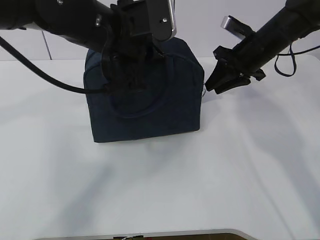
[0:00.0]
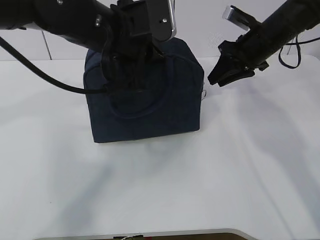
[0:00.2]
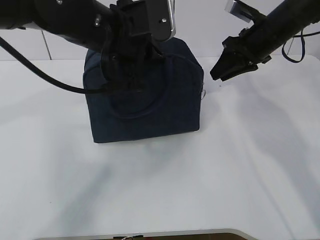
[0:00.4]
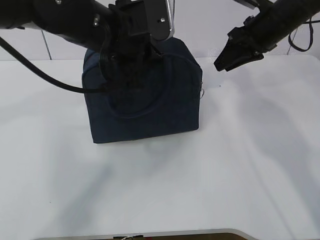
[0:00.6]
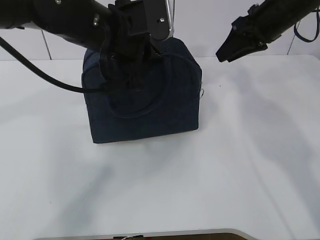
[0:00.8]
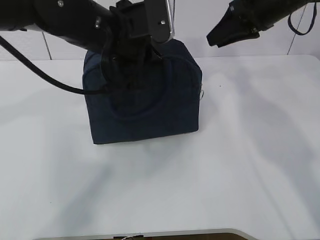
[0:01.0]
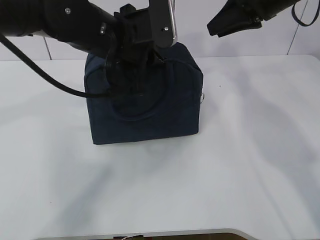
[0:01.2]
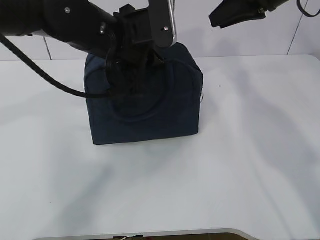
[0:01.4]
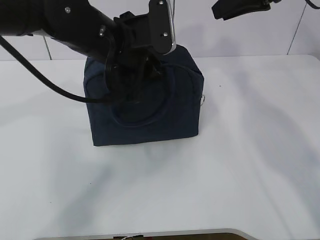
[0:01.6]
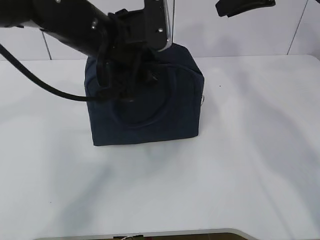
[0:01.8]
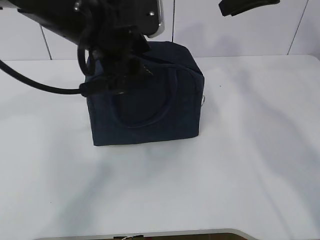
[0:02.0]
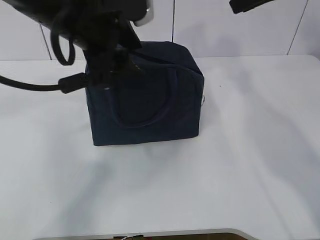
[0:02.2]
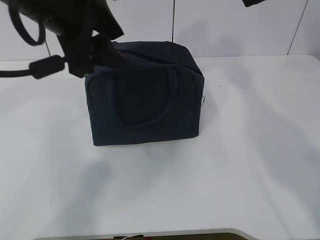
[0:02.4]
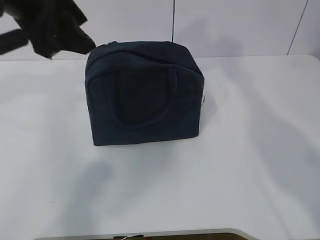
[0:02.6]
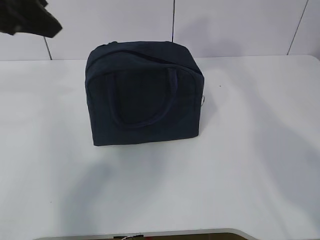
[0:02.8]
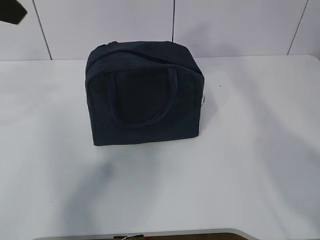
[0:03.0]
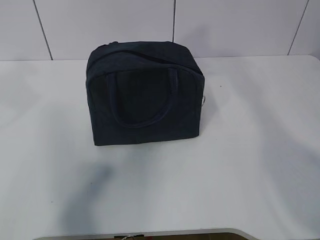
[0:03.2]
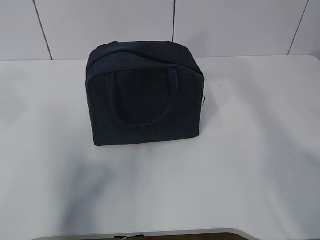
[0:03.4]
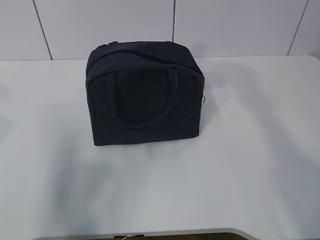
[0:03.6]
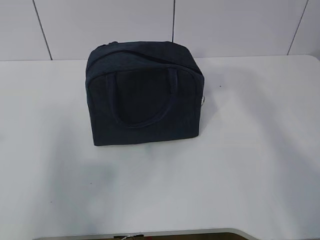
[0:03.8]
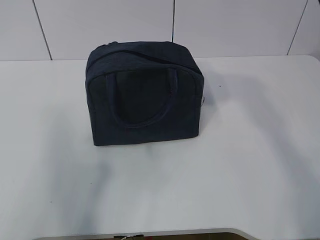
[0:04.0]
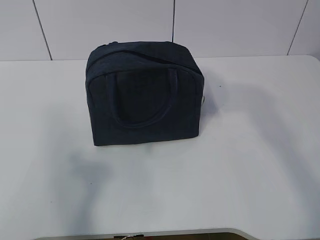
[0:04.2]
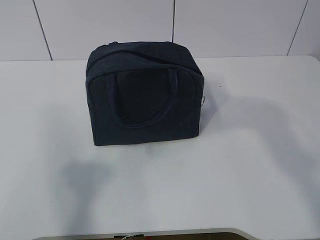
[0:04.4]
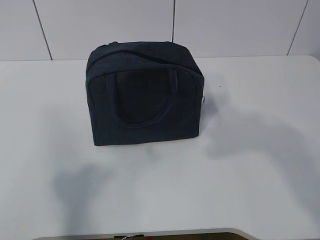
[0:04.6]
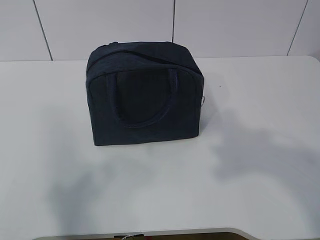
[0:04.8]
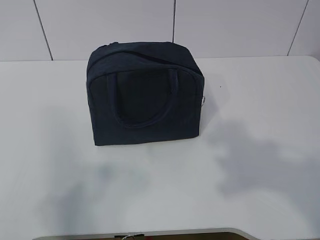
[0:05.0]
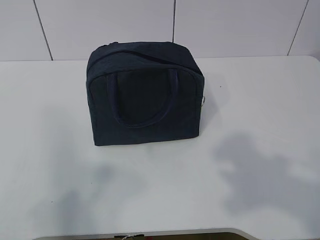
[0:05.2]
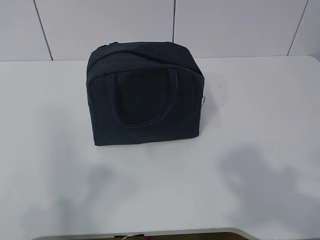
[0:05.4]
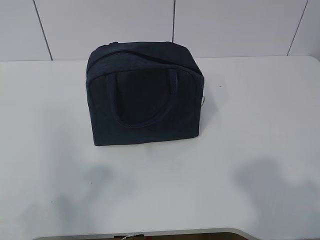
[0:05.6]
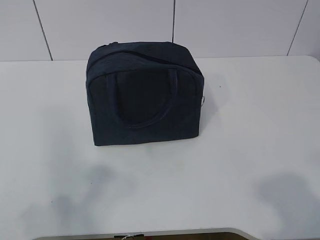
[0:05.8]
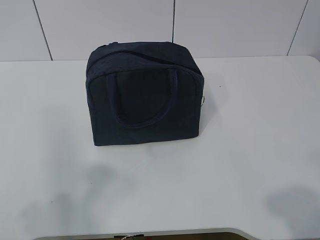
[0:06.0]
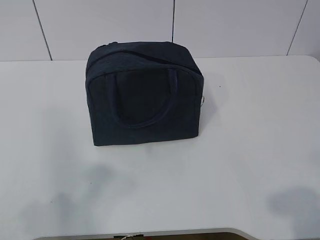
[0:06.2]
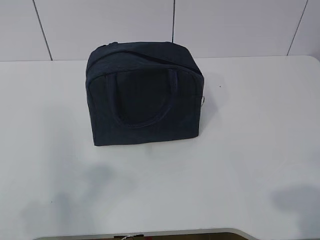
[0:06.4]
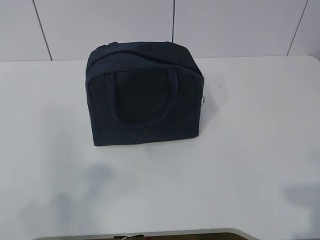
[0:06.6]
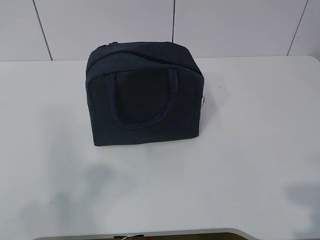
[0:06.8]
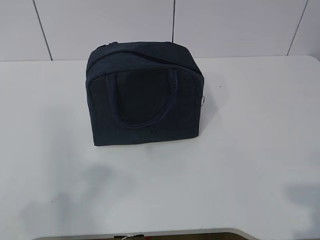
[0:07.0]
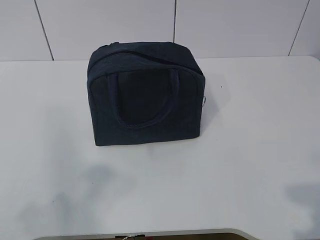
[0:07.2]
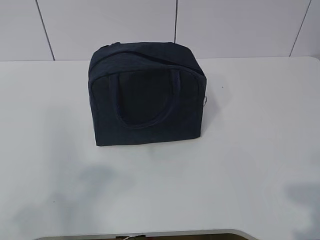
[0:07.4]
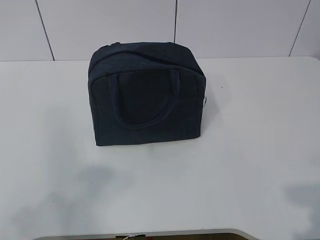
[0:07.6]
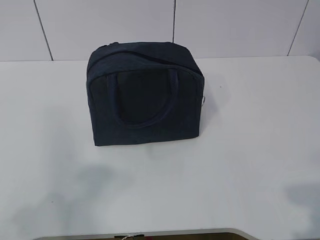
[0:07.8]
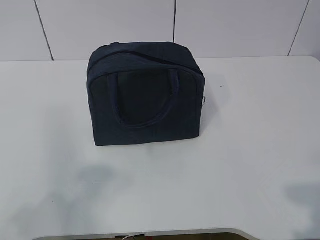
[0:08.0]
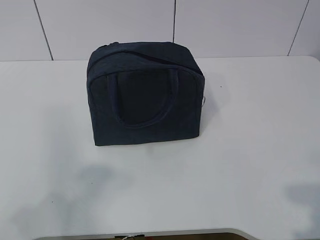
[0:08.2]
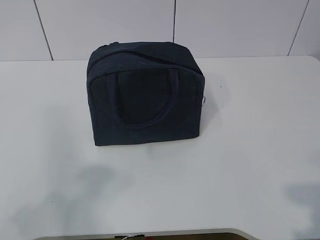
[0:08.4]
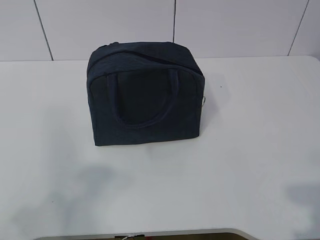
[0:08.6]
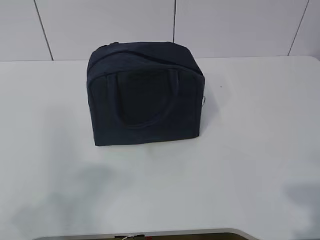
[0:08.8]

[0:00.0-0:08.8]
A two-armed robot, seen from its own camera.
0.0 to 1.4 s: The right gripper is displaced upward by about 15 cm.
1.4 to 3.0 s: The right gripper shifts some 15 cm backward and upward, while the left gripper goes about 25 cm to the left, upward and backward, and opens.
3.0 to 4.4 s: Both grippers move backward, roughly 20 cm.
4.4 to 5.8 s: The left gripper heads downward, covering approximately 5 cm. The right gripper heads backward and downward, covering roughly 20 cm.
5.8 to 7.4 s: The right gripper is displaced downward by some 5 cm.
7.4 to 8.8 s: Both grippers stay about where they are.

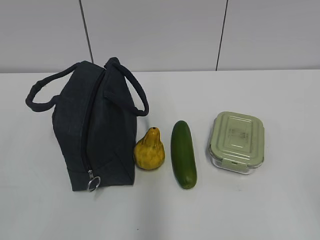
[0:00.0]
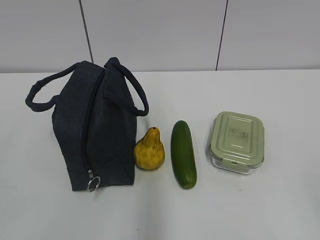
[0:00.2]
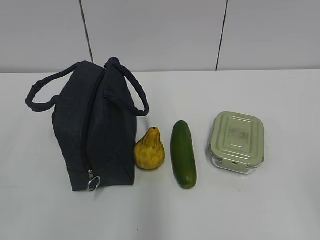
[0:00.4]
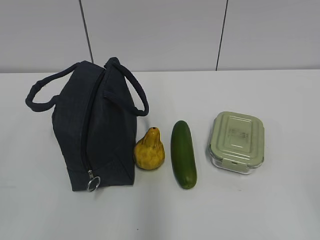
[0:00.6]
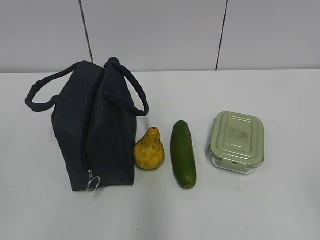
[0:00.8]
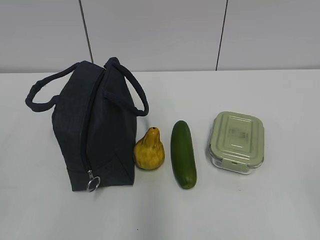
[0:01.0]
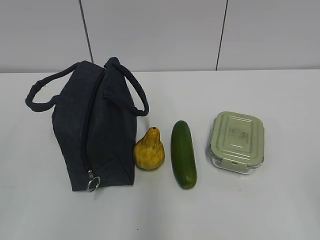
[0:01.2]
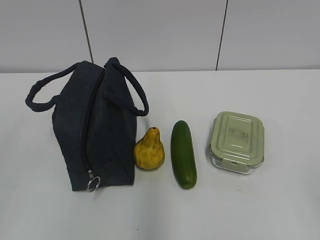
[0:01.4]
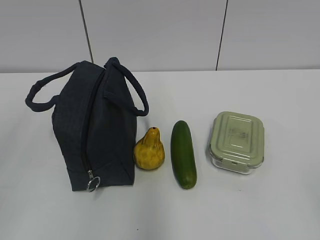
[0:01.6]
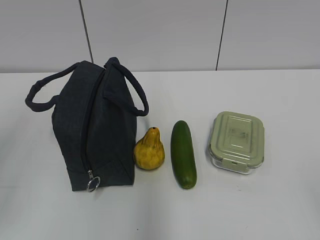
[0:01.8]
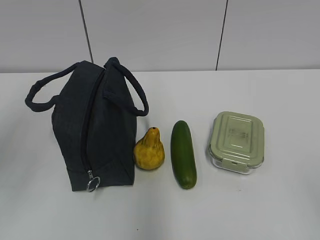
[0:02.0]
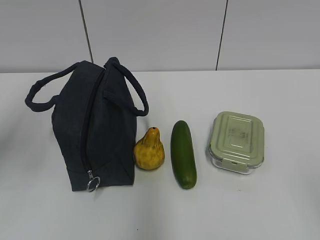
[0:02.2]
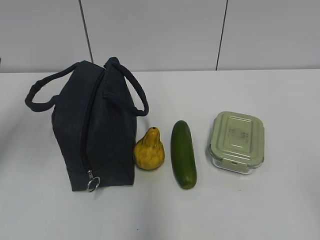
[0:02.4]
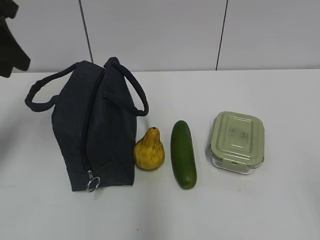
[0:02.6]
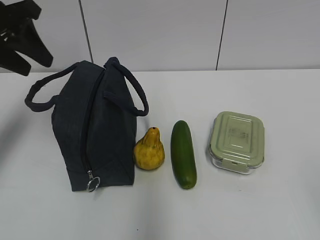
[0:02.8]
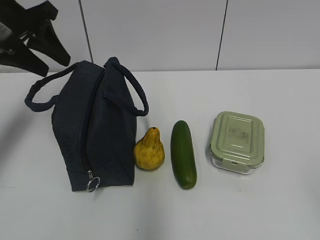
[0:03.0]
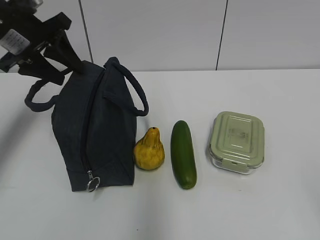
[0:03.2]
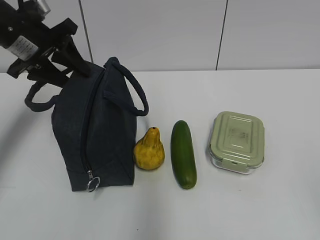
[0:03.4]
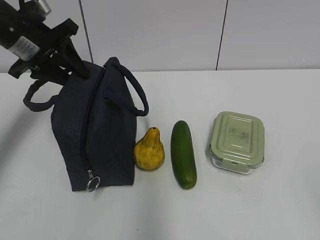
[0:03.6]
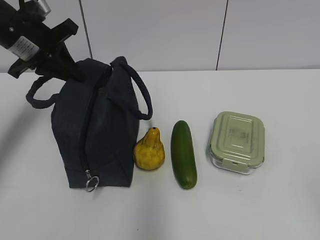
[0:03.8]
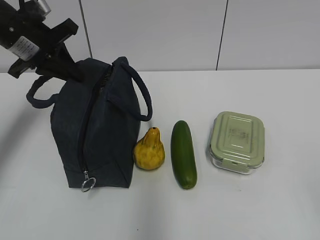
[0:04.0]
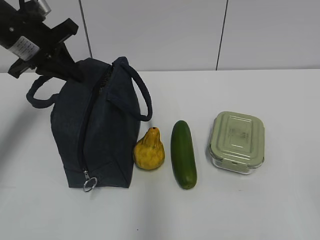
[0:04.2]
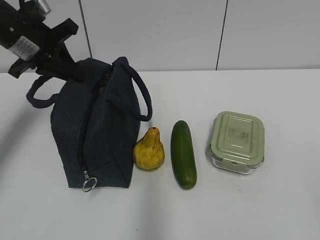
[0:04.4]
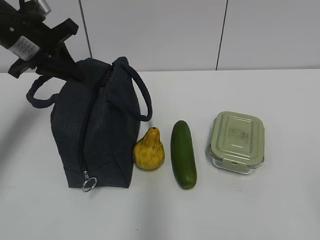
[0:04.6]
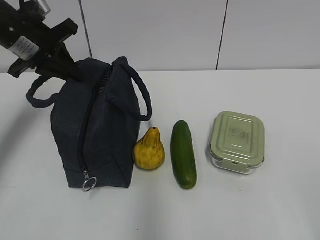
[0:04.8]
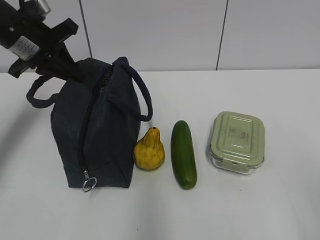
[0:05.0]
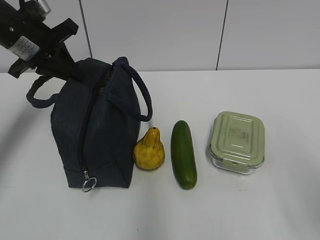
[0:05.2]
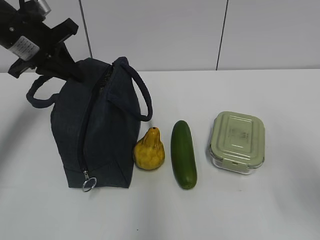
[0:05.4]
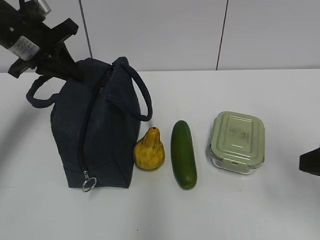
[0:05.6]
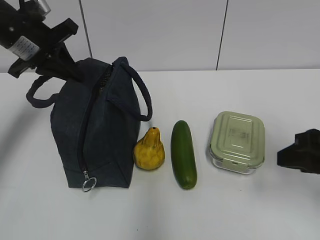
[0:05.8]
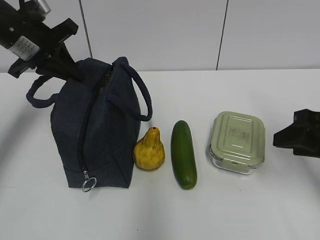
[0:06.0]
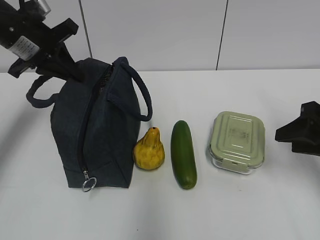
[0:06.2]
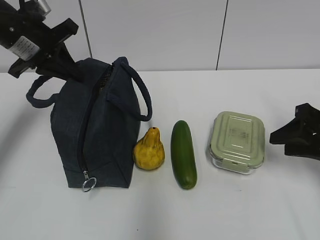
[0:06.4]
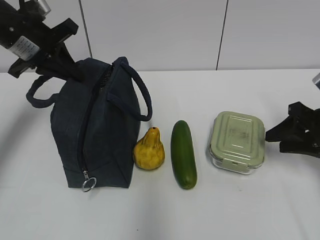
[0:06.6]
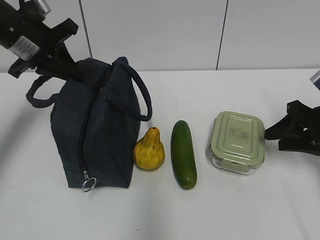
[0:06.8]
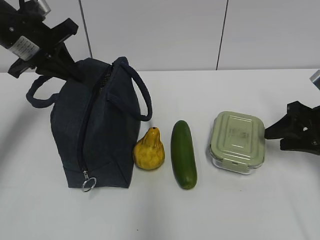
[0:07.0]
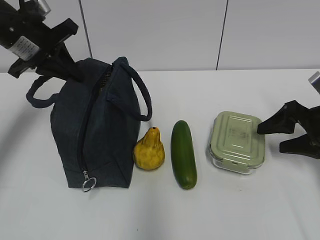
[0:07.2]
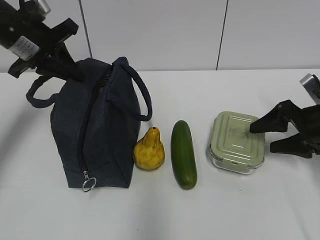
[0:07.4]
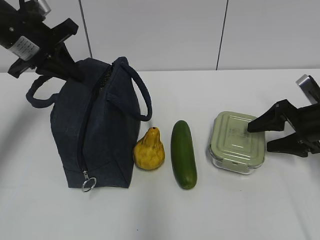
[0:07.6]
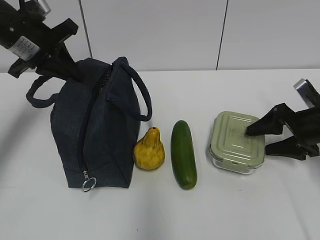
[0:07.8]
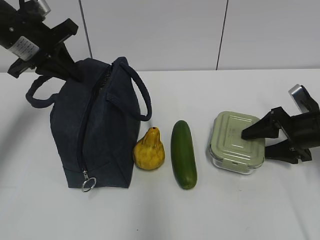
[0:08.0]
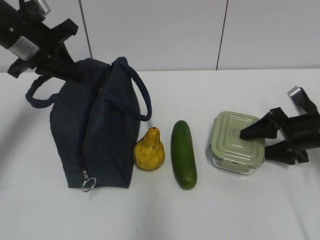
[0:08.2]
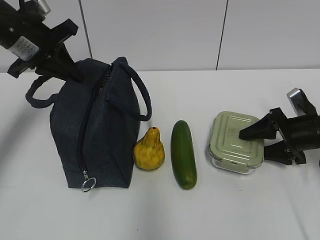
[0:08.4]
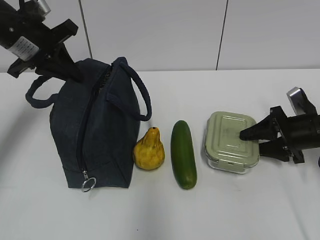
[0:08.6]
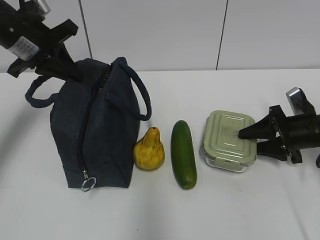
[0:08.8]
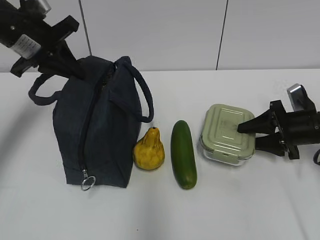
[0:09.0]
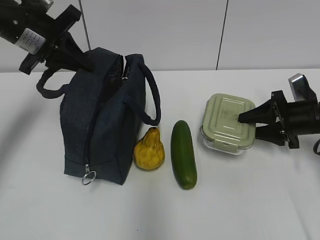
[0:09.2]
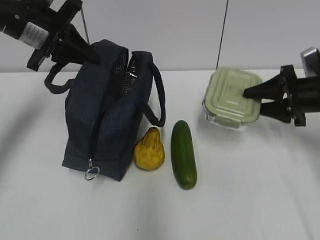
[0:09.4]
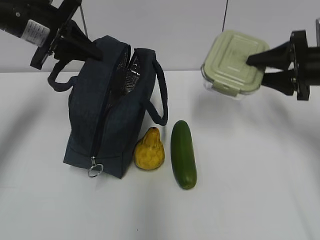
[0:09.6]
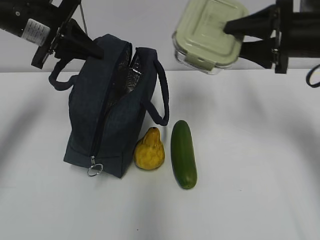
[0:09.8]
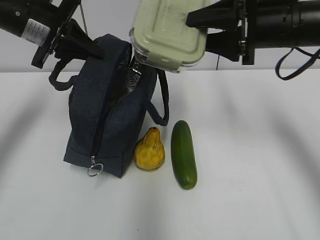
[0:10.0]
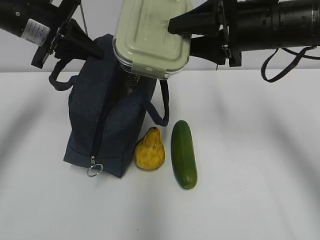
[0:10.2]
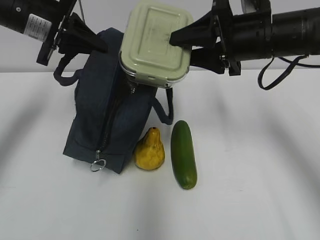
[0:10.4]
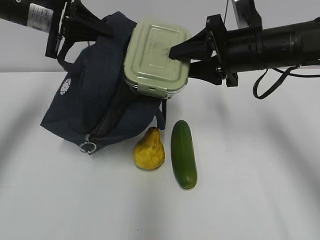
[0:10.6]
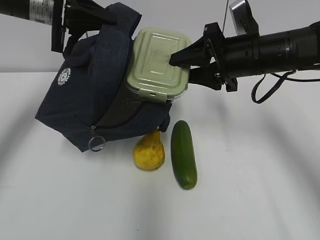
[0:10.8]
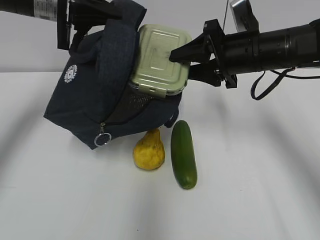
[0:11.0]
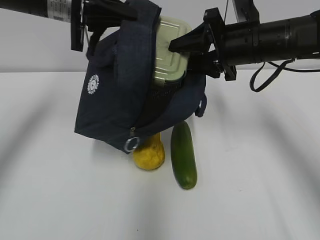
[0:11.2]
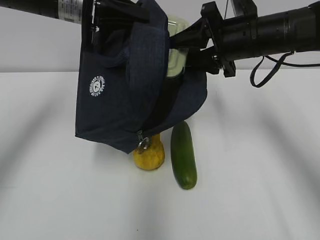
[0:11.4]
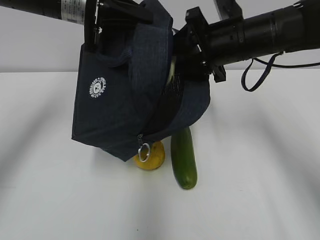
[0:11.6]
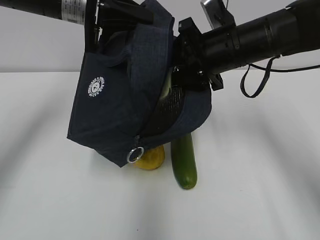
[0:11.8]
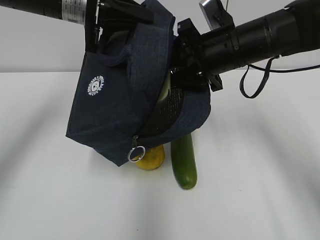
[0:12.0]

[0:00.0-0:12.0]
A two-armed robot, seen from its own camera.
Step, 0.0 to 8.8 s: Grab the lunch box with your right hand.
1.6 to 3.0 s: The left gripper goes approximately 30 cm forward.
3.0 to 4.4 s: The left gripper closes.
4.4 to 6.0 s: The right gripper is displaced forward by approximately 25 cm.
6.0 to 7.6 s: The right gripper shifts about 15 cm forward and downward, and opens up.
7.6 to 9.0 s: The right gripper closes its fingers.
9.0 to 10.4 s: The right gripper is displaced upward and to the left by roughly 20 cm.
10.4 to 12.0 s: The left gripper goes approximately 5 cm to the right.

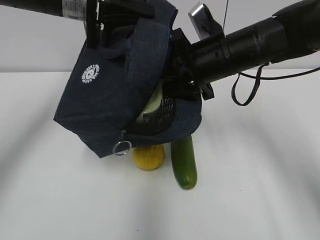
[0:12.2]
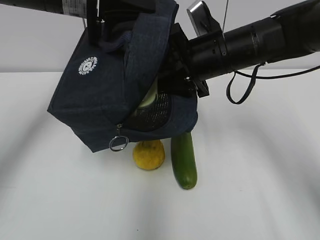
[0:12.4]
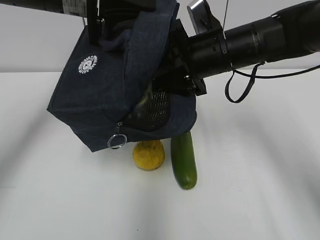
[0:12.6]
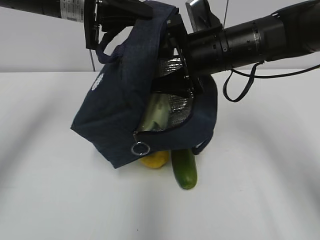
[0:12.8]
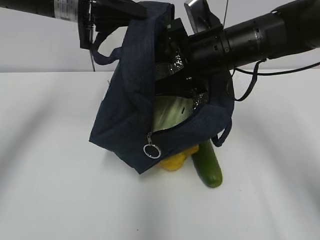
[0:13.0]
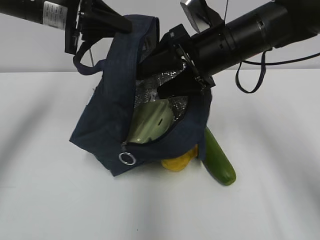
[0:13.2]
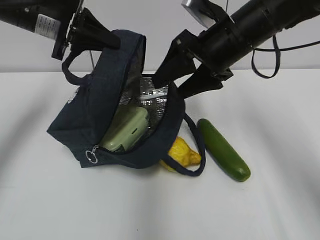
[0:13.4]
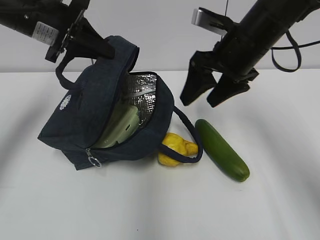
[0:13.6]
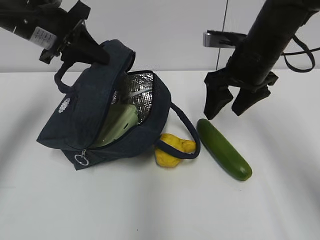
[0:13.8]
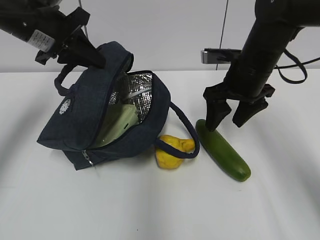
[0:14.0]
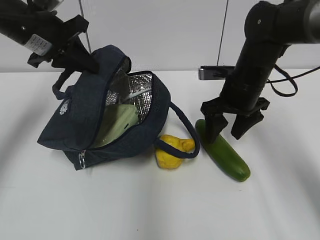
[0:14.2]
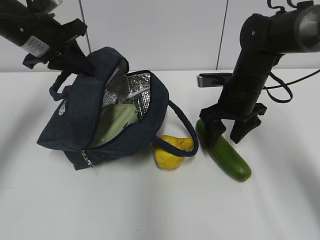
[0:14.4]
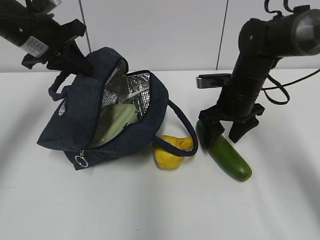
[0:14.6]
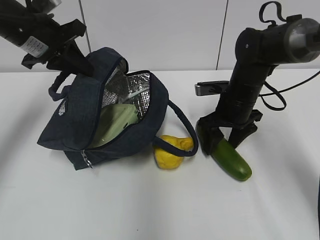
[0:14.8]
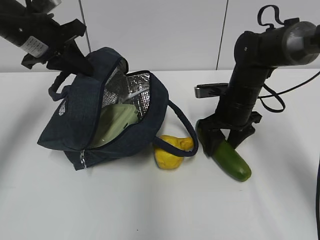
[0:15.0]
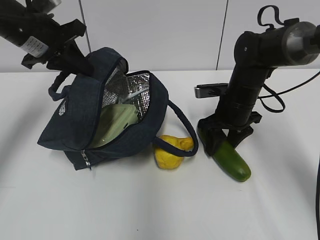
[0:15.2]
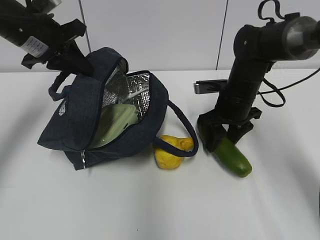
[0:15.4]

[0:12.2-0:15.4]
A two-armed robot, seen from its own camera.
Step, 13.2 to 15.2 s: Grab the cucumber with your right hand.
12.2 to 13.8 s: The right gripper is displaced to the right by some 5 cm. Meanwhile the left gripper goes about 5 cm to the left.
13.8 to 15.4 s: The right gripper is displaced downward by approximately 10 cm.
